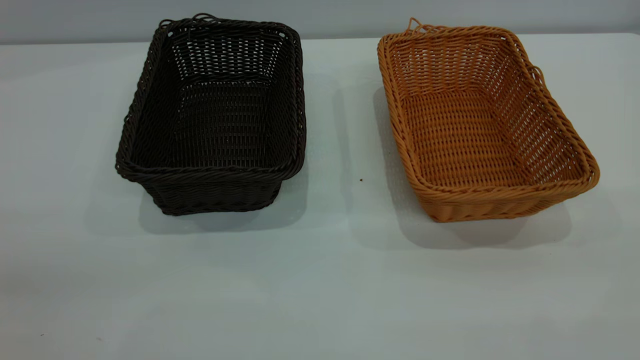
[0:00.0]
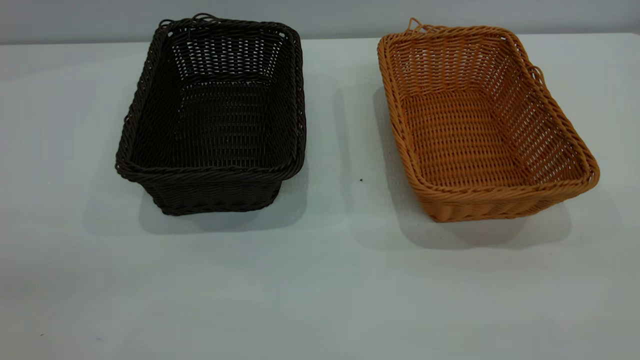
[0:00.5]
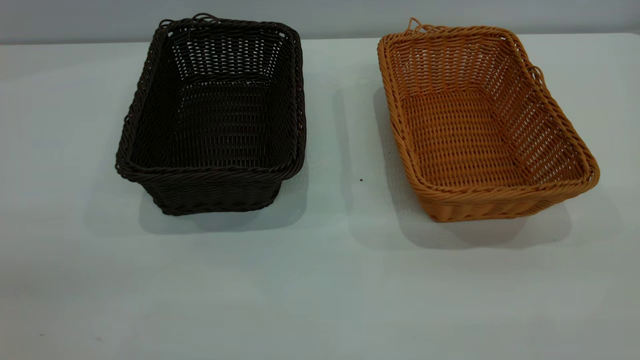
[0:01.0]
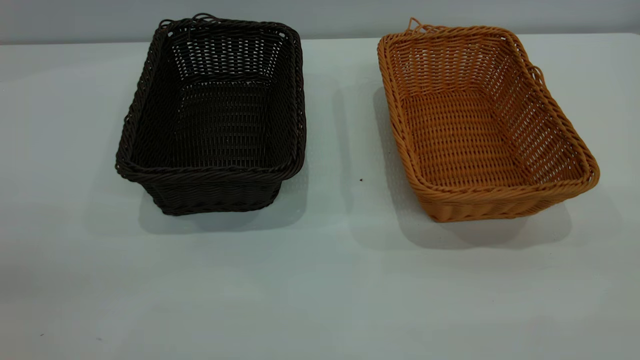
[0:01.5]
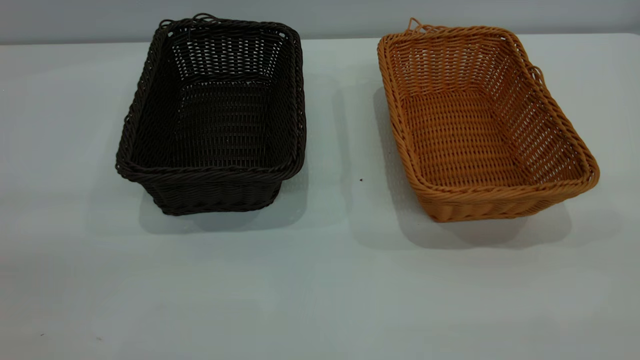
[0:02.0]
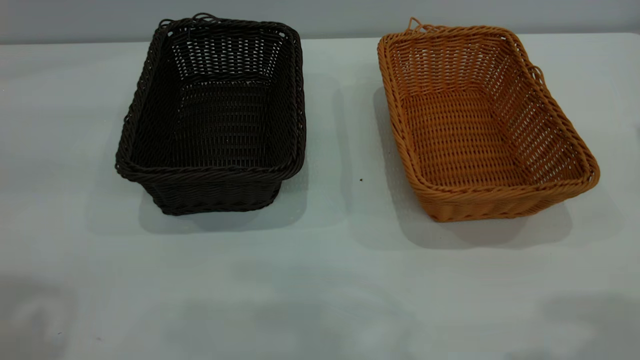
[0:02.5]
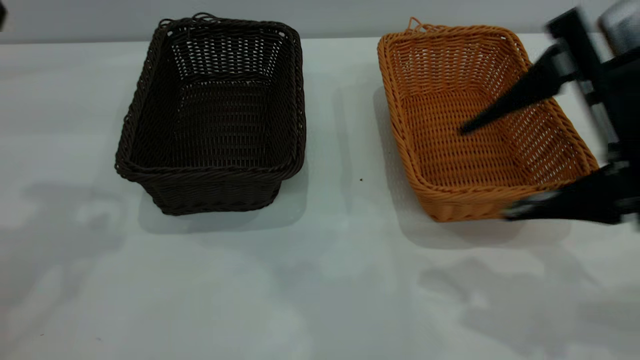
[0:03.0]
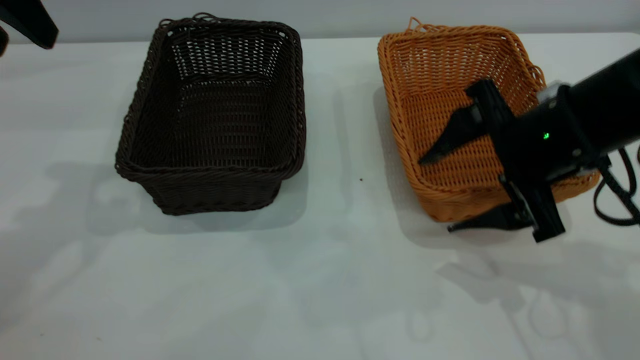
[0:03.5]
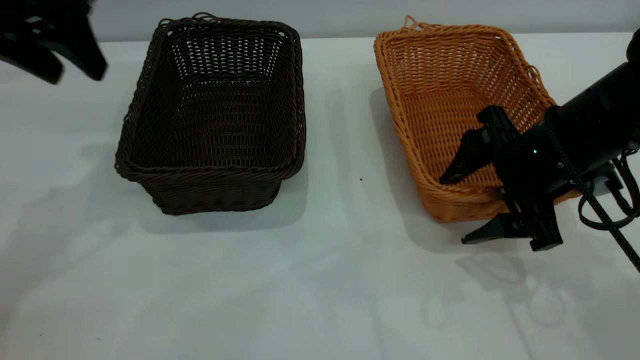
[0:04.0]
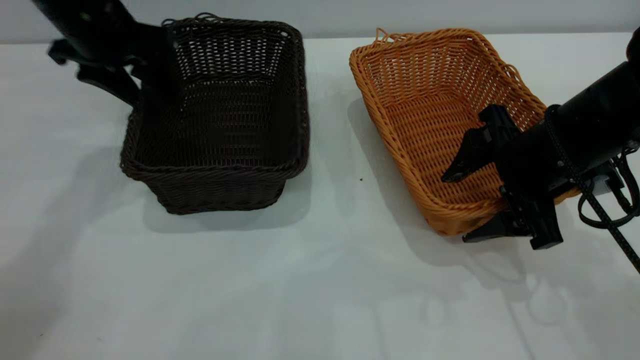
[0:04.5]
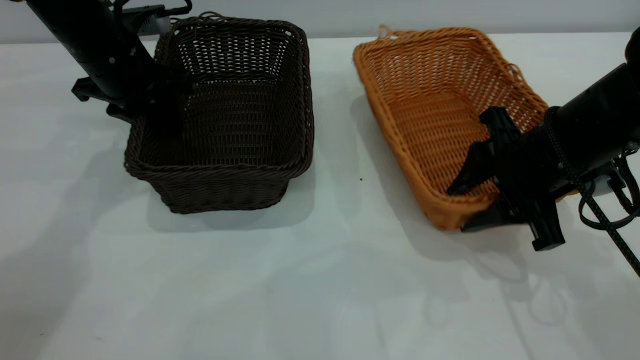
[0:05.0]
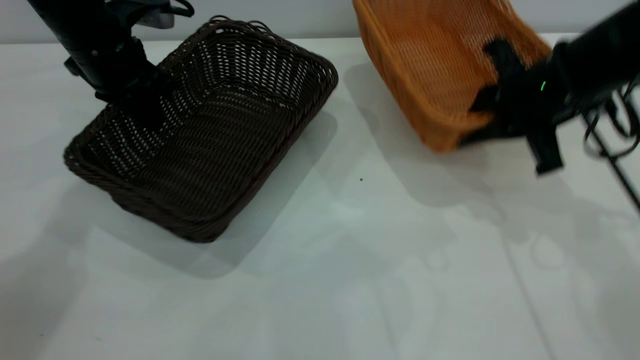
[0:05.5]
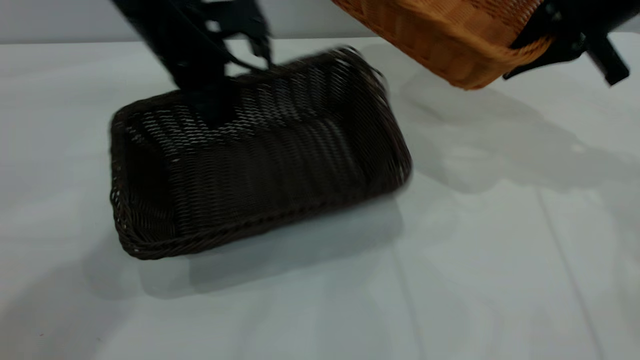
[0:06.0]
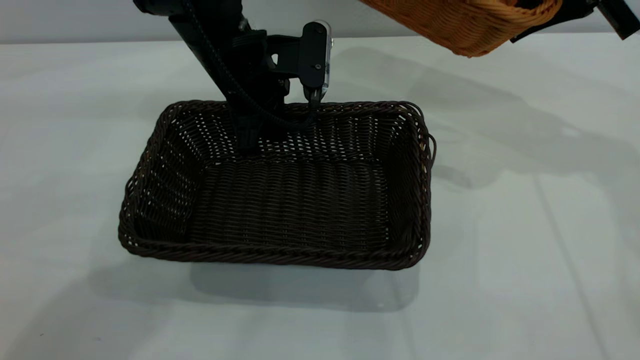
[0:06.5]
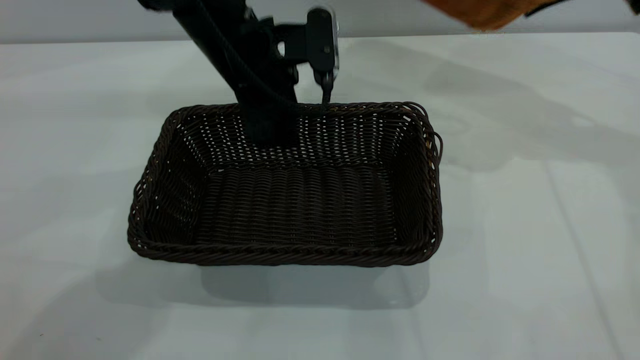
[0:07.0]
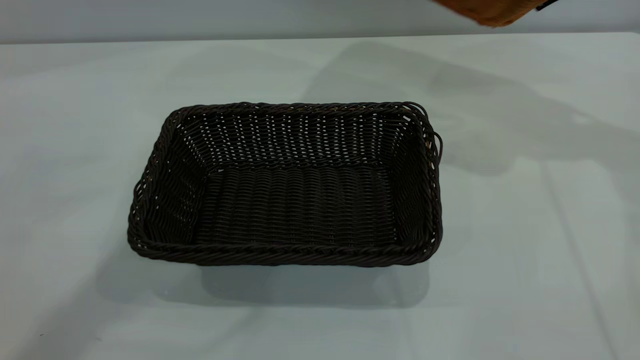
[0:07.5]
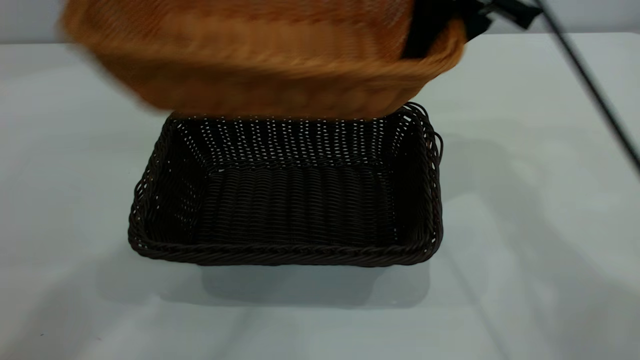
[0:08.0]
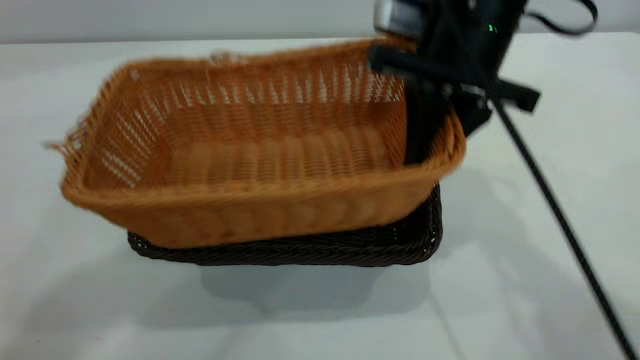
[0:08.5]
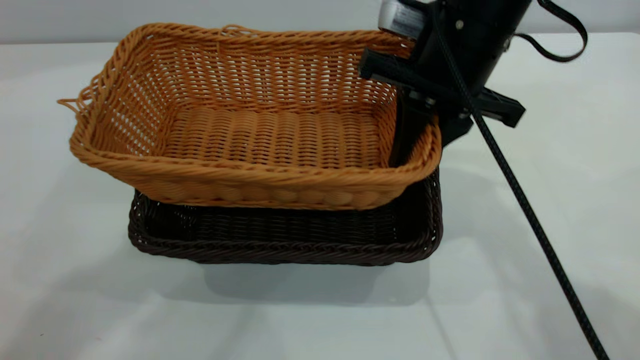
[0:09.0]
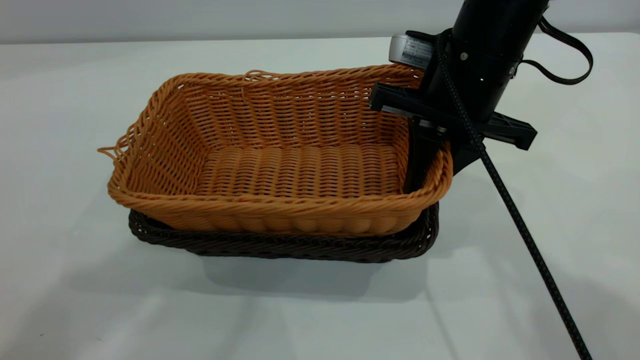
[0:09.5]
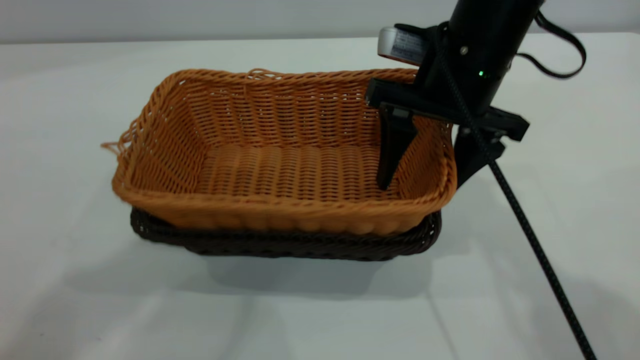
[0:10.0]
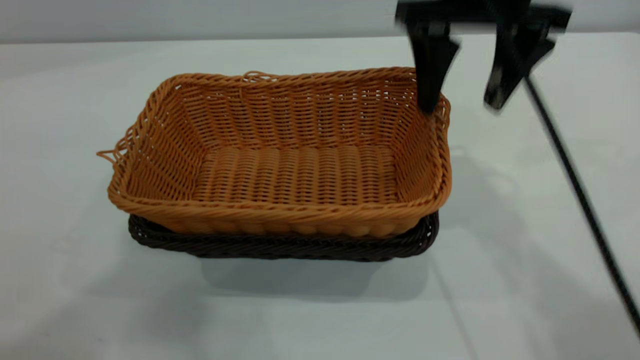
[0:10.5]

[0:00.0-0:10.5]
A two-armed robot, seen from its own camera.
Task of the whole recording: the left gripper grasp the black basket and place it in the center of the table, the right gripper grasp the brown basket and place it inside the black one.
Step, 0:00.0 to 0:05.5: Pick up the light basket with the right gripper.
Step, 0:06.0 to 0:07.0: Move the dark basket to the center of view.
Step, 0:07.5 to 0:10.5: Place the light basket on the dark basket.
0:02.0 to 0:04.0: The left gripper shifts about 35 cm forward; the right gripper moves forward and downward, roughly 35 cm.
0:04.0 to 0:06.5: The left gripper moves to the right and downward, roughly 20 cm, and closes up; the right gripper moves upward, forward and to the right, approximately 20 cm, and closes its fingers.
0:06.5 to 0:08.5: The left gripper travels upward by some 40 cm, and opens; the right gripper goes roughly 20 cm to the left and backward.
0:08.5 to 0:10.5: The right gripper moves upward, approximately 5 cm, and opens up. The left gripper shifts roughly 10 cm backward and upward.
